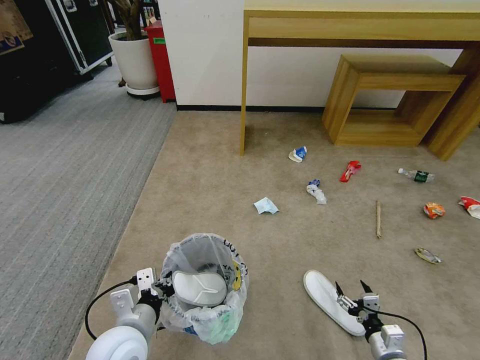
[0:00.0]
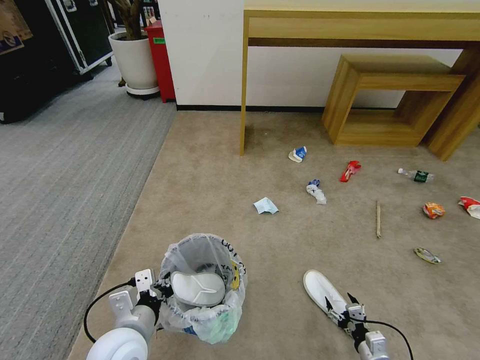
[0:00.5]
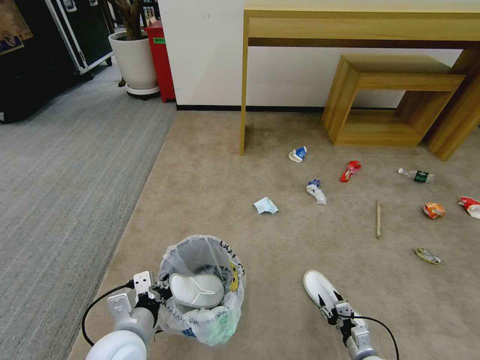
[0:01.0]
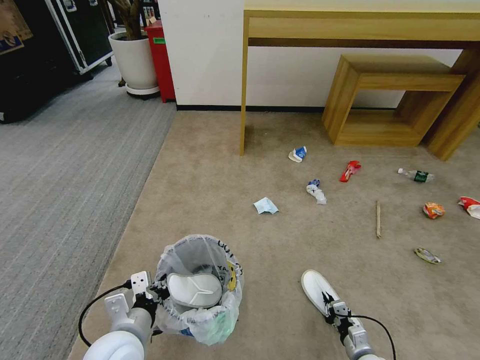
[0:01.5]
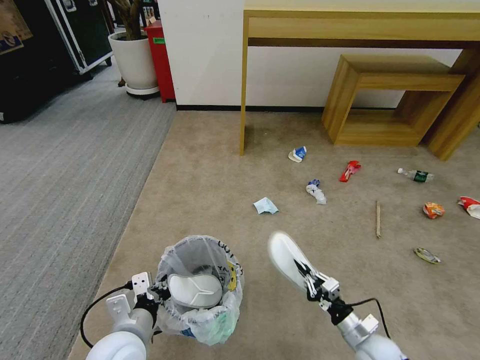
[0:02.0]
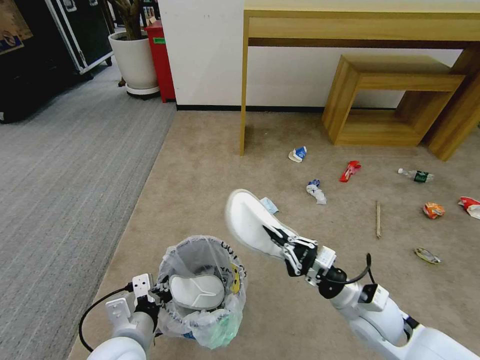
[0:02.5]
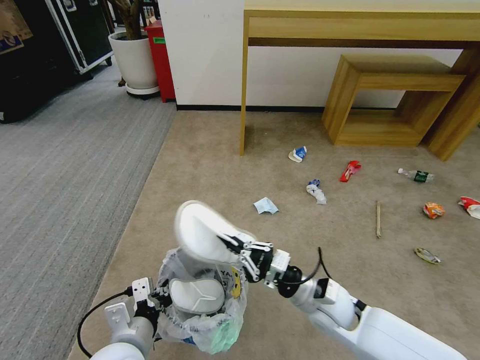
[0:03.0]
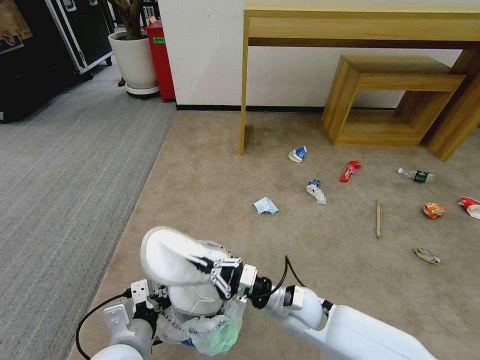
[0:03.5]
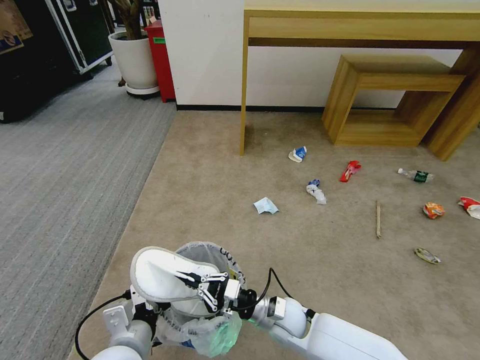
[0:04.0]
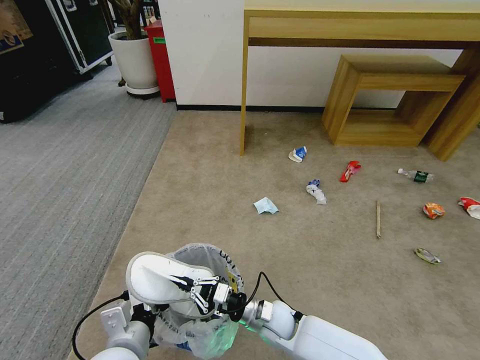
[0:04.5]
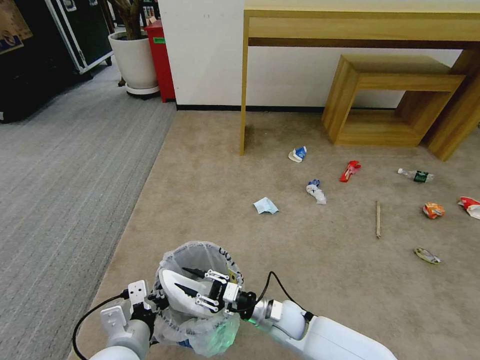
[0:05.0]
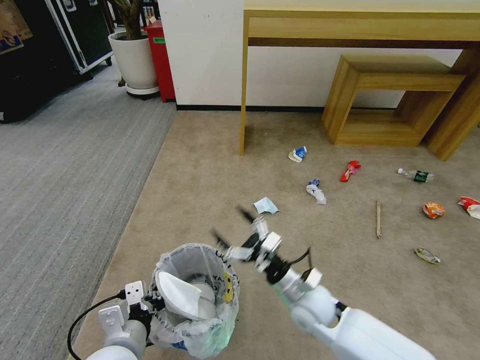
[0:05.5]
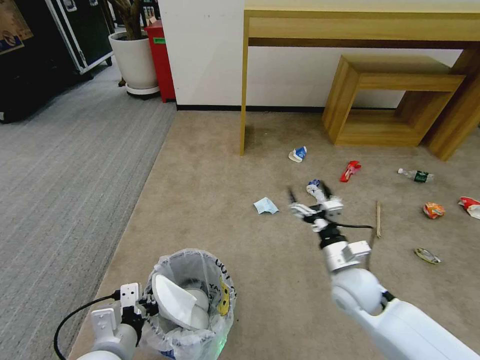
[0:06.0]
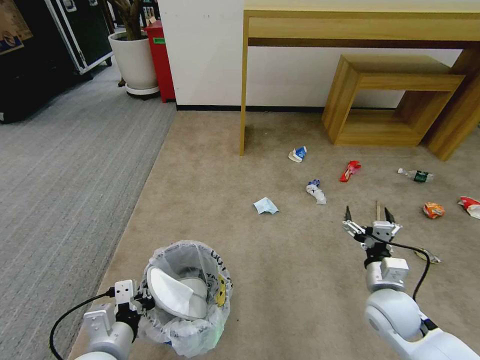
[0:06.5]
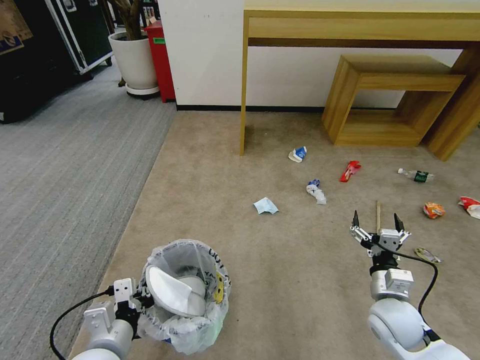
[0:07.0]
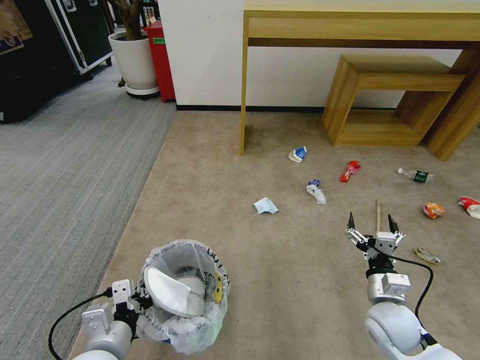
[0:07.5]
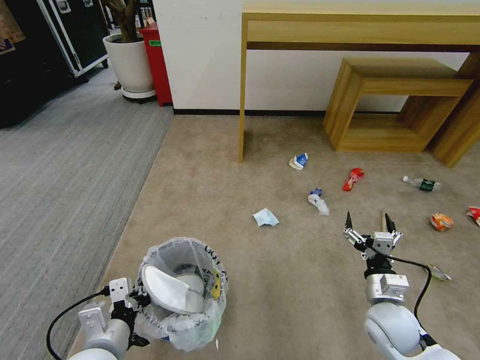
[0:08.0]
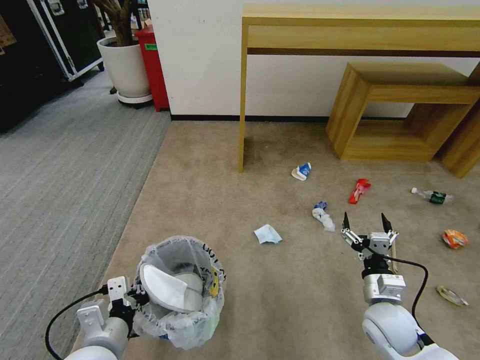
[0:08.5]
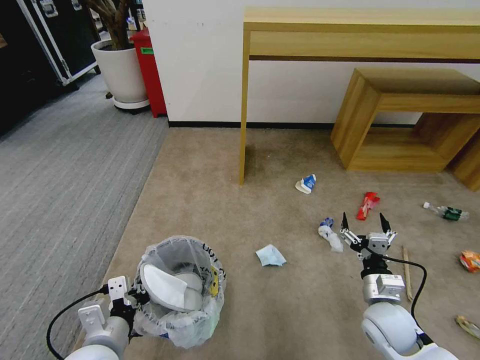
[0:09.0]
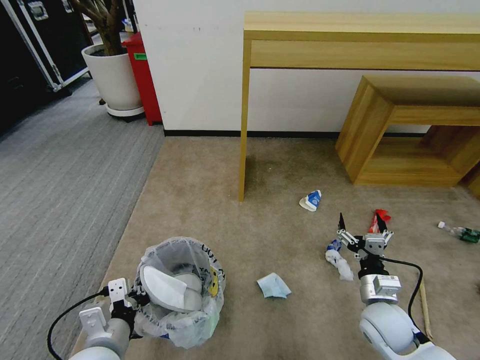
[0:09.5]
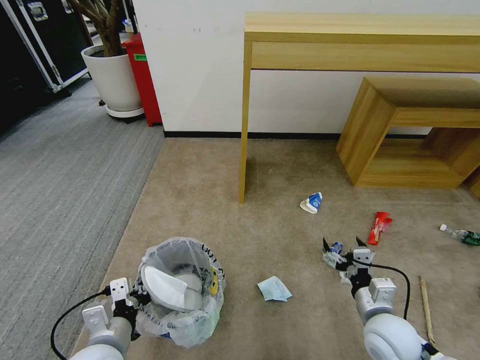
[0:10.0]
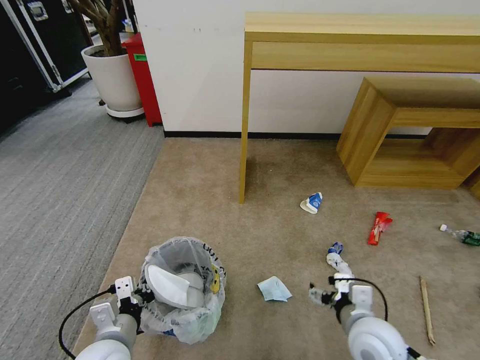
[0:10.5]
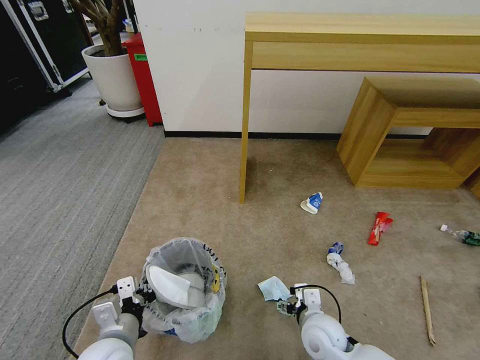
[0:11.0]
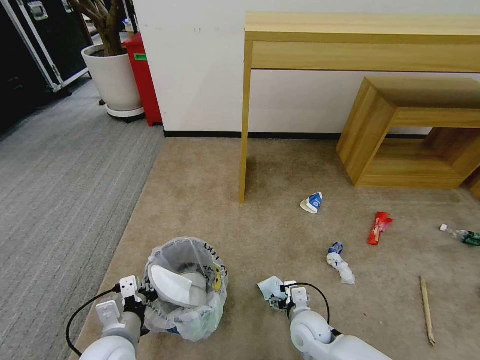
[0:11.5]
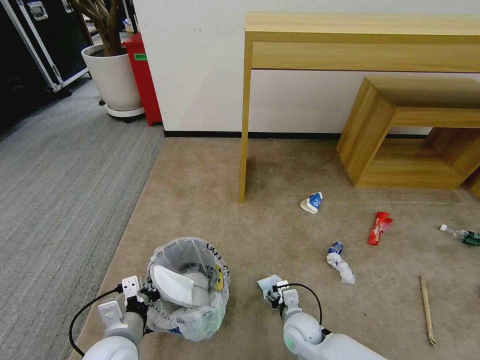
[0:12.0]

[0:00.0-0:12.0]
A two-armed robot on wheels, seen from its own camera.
Task of the whole recording: Pick up the trash bin and place the garbage on the floor into it.
0:00.0 to 0:02.0: The right gripper is displaced to the left and forward by some 5 cm, travels downward and back again, some 10 cm each way, and closes.
0:02.0 to 0:04.0: The right gripper moves to the left, some 20 cm.
0:04.0 to 0:06.0: The right gripper goes approximately 20 cm to the right and upward, and opens.
0:06.0 to 0:08.0: The right gripper is displaced to the right and backward by approximately 10 cm.
0:10.0 to 0:12.0: The right gripper goes about 20 cm downward and to the left.

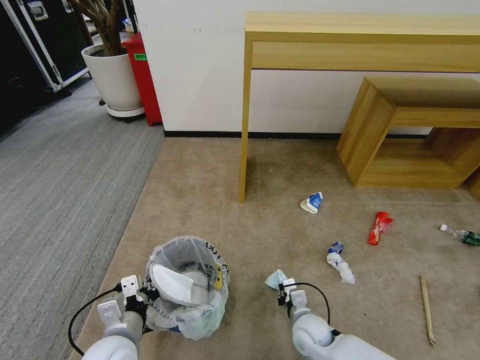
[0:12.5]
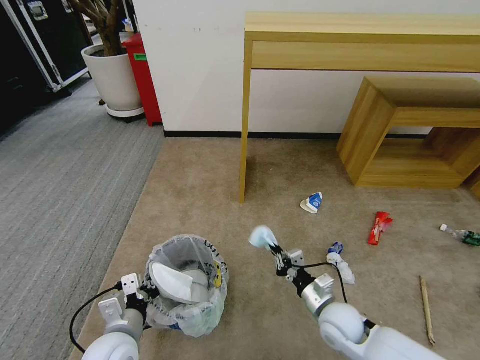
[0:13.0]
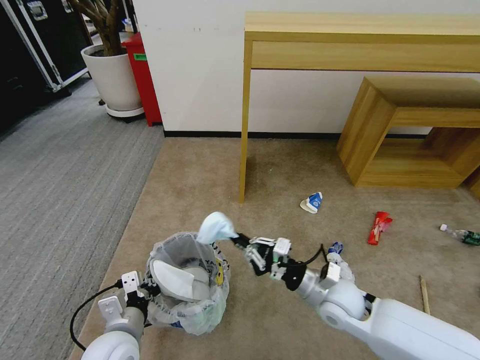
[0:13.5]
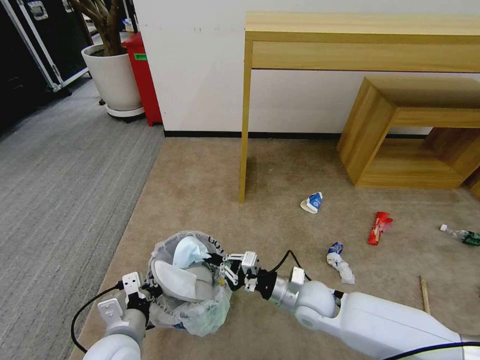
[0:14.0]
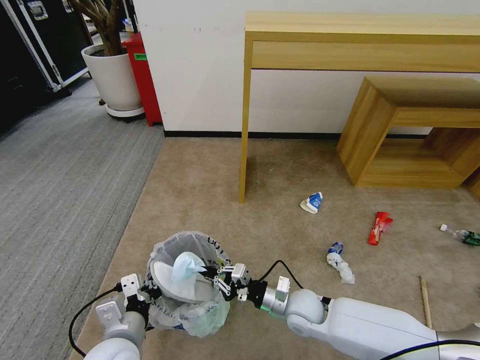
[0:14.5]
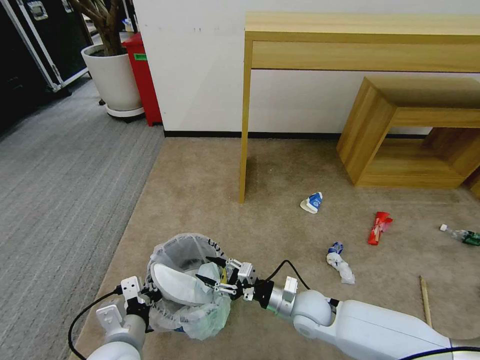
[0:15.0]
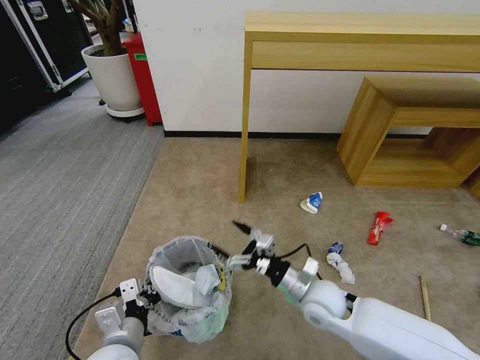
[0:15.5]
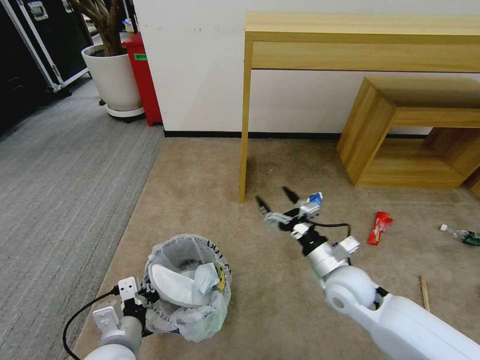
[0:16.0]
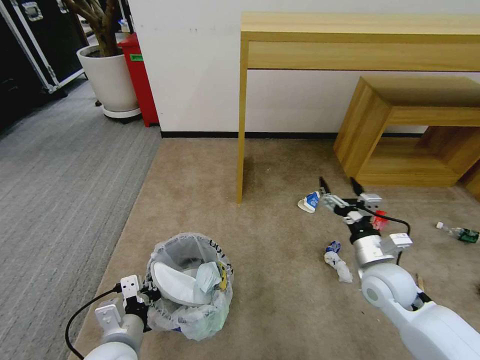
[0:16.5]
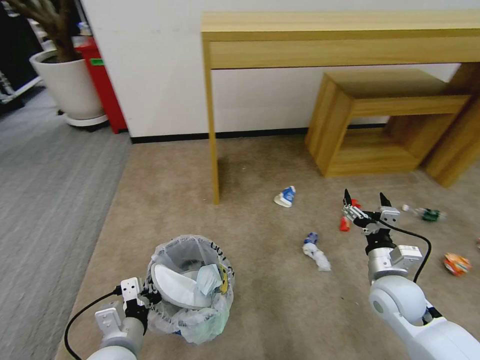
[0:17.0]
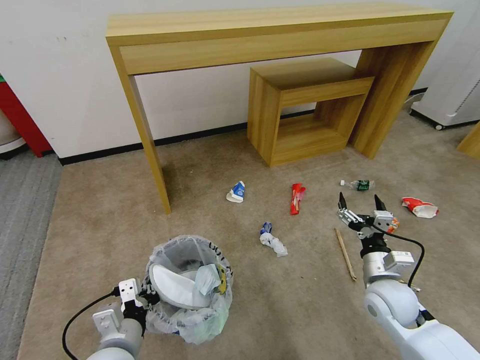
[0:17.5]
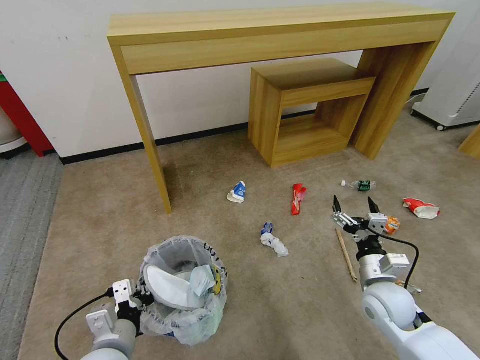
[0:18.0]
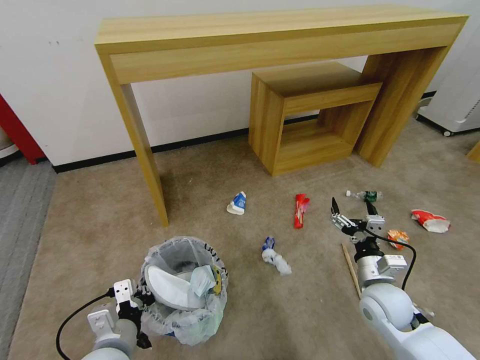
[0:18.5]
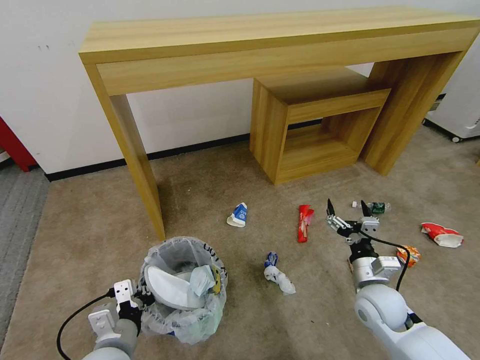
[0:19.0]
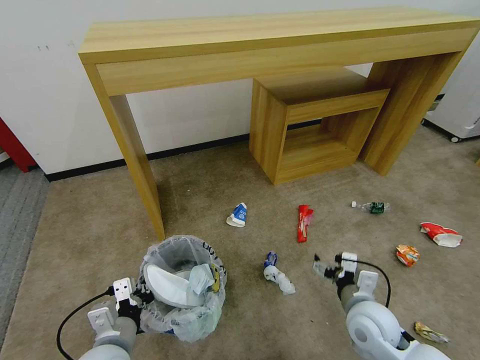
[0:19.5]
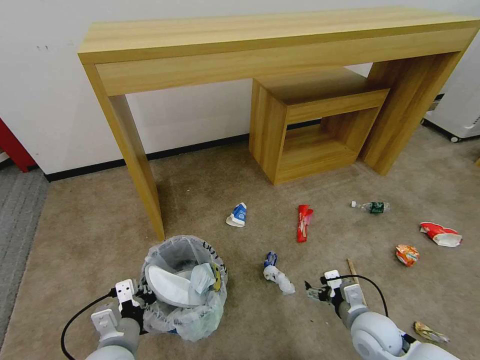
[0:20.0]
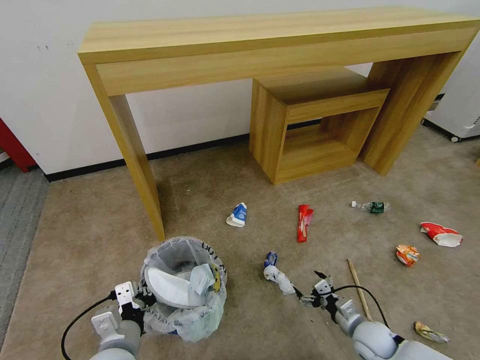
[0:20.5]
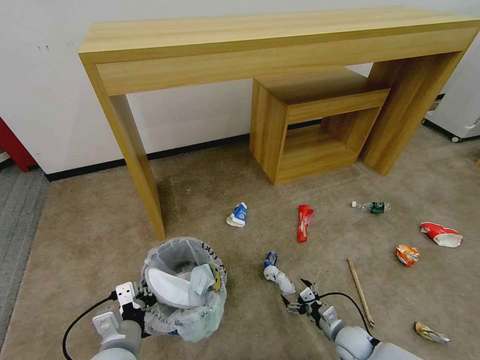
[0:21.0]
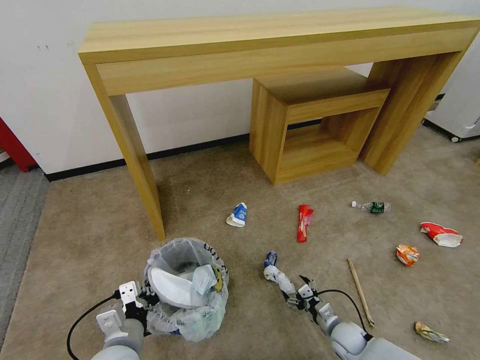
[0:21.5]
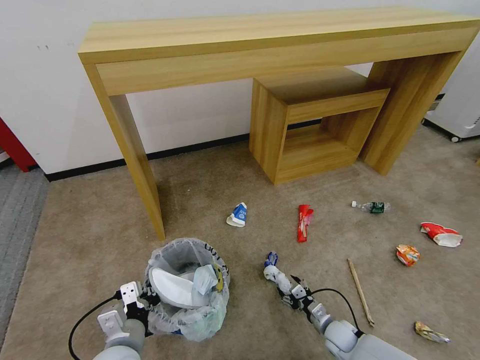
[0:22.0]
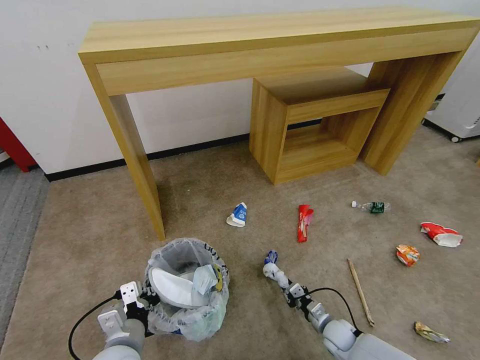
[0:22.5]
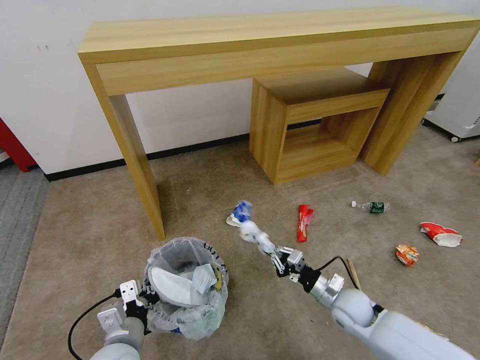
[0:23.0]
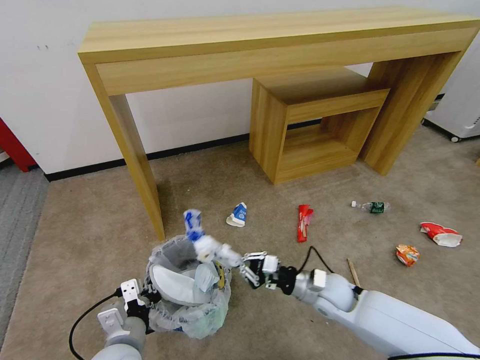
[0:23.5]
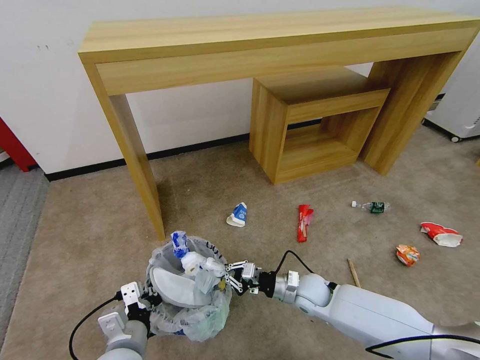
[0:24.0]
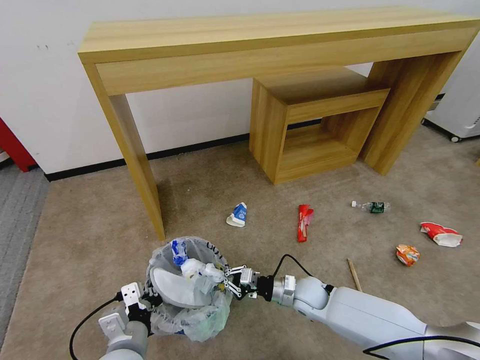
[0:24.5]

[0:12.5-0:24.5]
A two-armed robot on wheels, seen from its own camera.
Task of the whole recording: Pick up the trash bin and place the garbage on the floor into it.
0:12.5 to 0:14.5: The right gripper heads upward, covering approximately 10 cm.
0:14.5 to 0:16.5: The right gripper shifts roughly 20 cm to the right and upward, and opens up.
0:16.5 to 0:18.5: The right gripper moves some 5 cm.
0:18.5 to 0:20.5: The right gripper is displaced downward by about 15 cm.
0:20.5 to 0:22.5: The right gripper moves downward and to the left, about 10 cm, and closes up.
0:22.5 to 0:24.5: The right gripper travels upward, to the left and forward by approximately 20 cm.

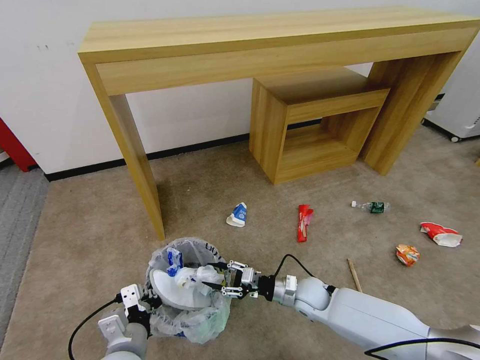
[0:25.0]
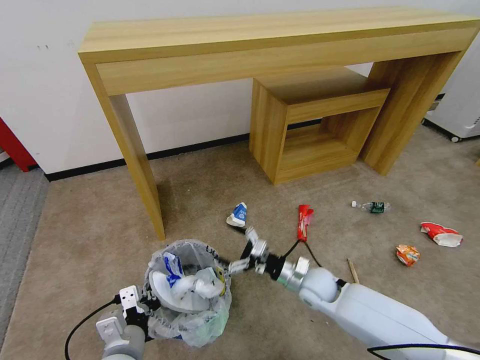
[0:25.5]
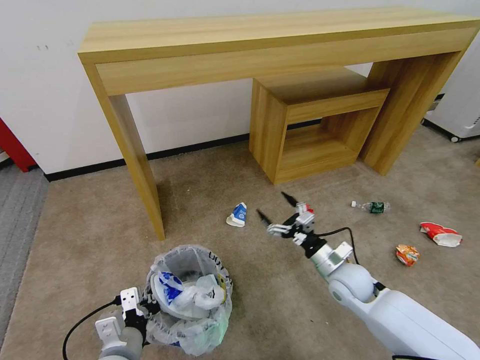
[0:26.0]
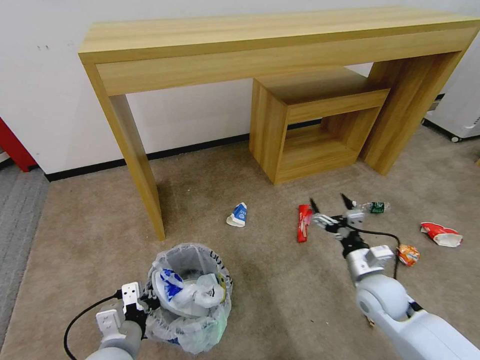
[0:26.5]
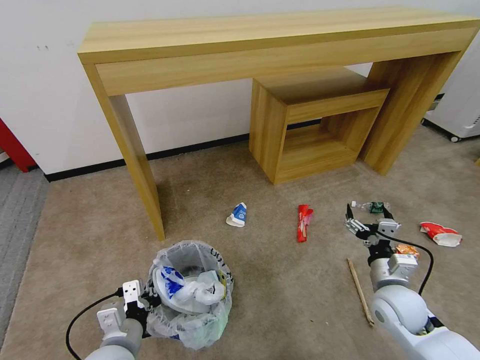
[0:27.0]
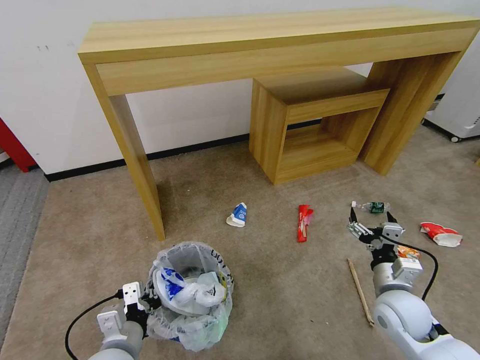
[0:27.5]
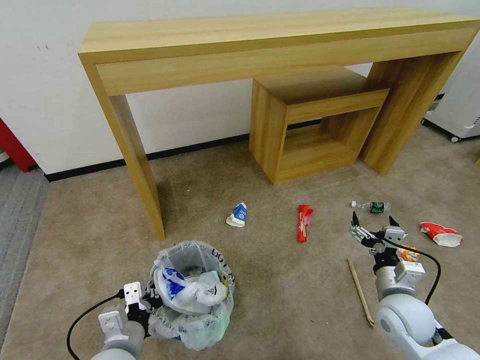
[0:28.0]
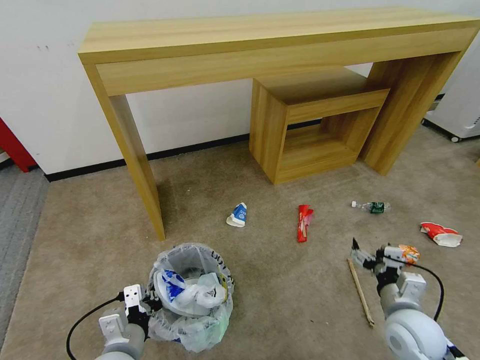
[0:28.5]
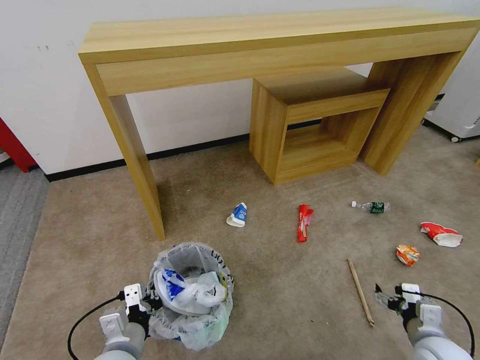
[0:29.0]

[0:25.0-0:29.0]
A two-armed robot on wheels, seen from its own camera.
Task of the whole recording: Pick up the trash bin and place the garbage on the floor into it.
0:25.0 to 0:27.0: The right gripper is displaced to the right, upward and backward by approximately 20 cm, and opens.
0:27.0 to 0:29.0: The right gripper goes approximately 15 cm backward, to the right and downward.
